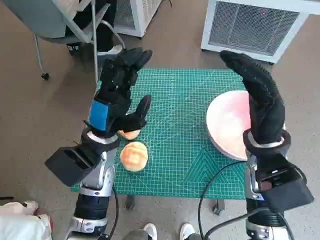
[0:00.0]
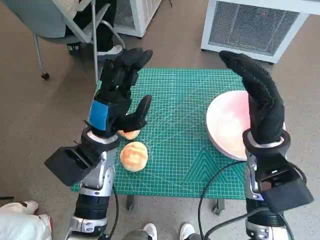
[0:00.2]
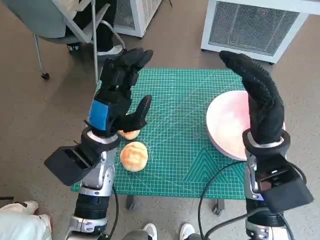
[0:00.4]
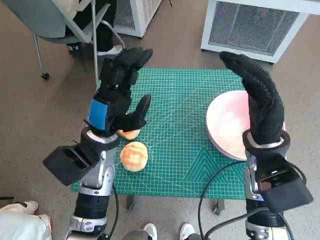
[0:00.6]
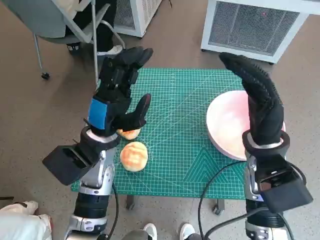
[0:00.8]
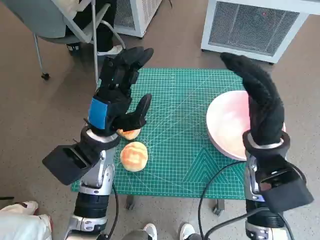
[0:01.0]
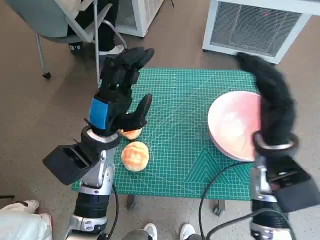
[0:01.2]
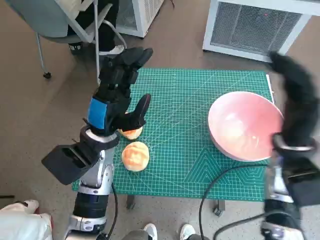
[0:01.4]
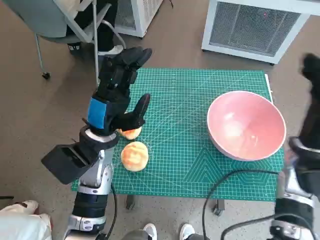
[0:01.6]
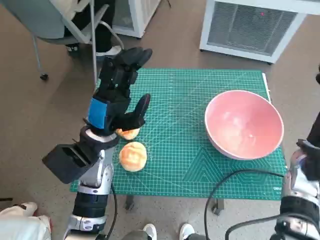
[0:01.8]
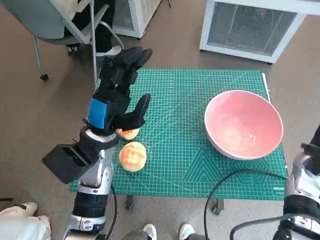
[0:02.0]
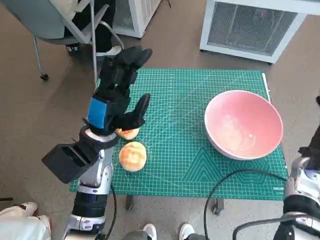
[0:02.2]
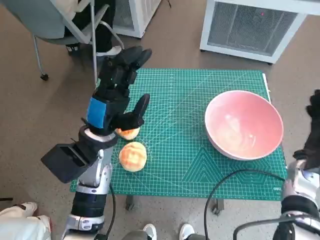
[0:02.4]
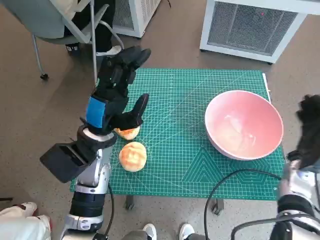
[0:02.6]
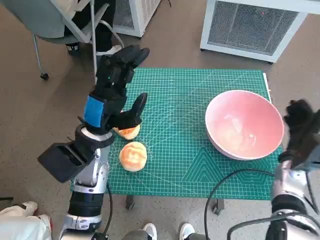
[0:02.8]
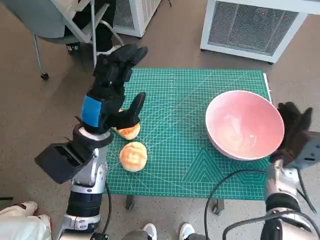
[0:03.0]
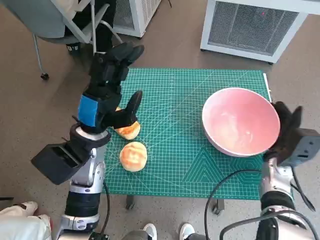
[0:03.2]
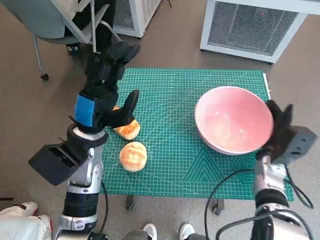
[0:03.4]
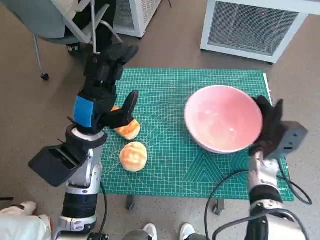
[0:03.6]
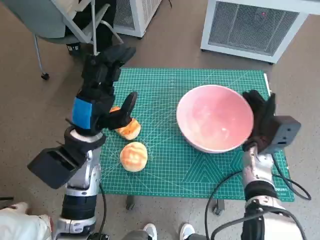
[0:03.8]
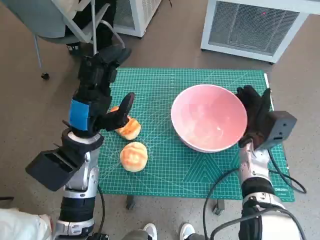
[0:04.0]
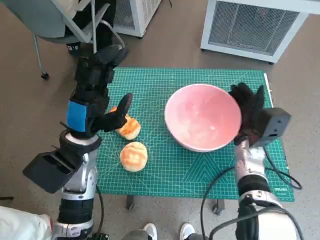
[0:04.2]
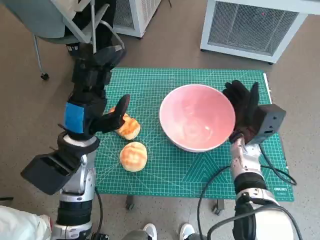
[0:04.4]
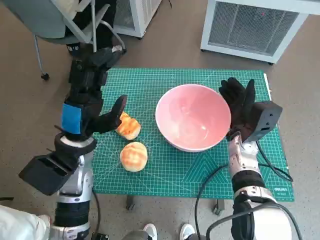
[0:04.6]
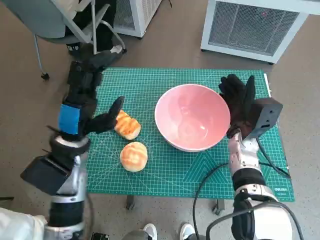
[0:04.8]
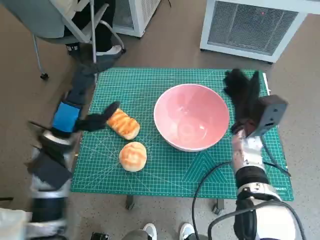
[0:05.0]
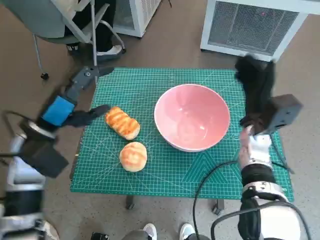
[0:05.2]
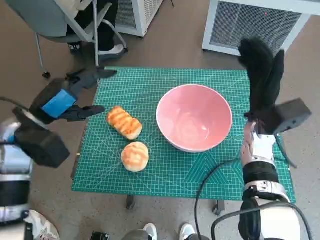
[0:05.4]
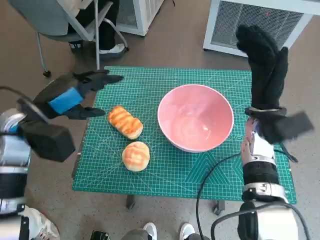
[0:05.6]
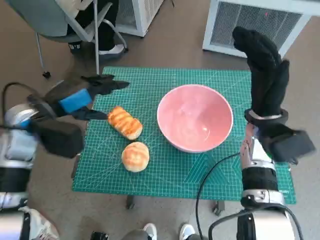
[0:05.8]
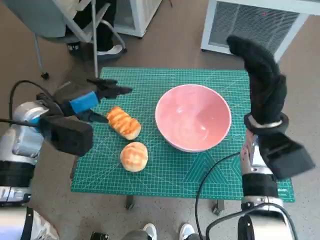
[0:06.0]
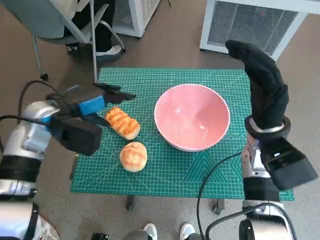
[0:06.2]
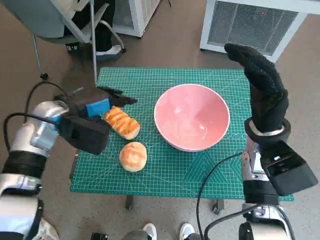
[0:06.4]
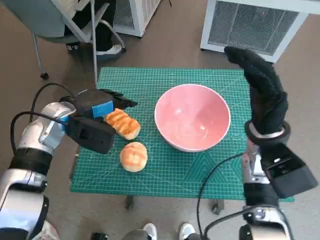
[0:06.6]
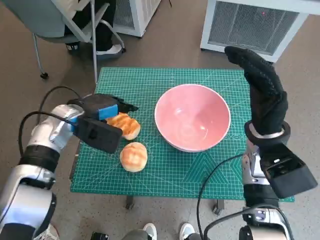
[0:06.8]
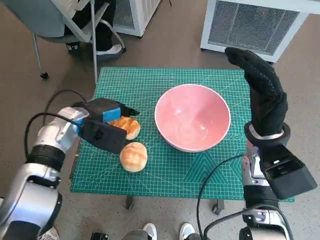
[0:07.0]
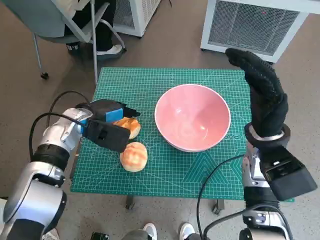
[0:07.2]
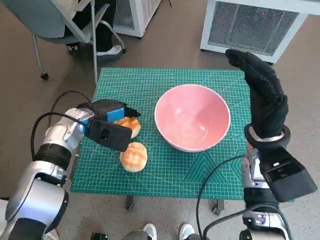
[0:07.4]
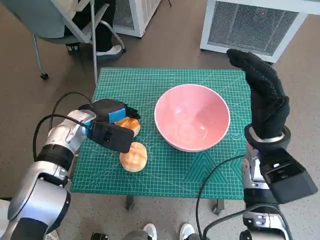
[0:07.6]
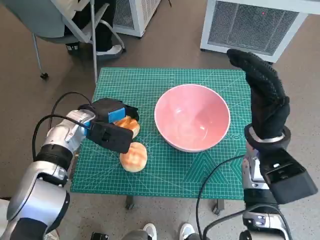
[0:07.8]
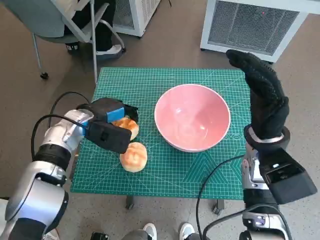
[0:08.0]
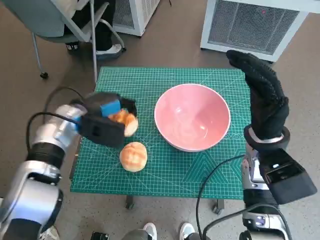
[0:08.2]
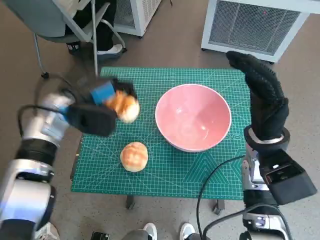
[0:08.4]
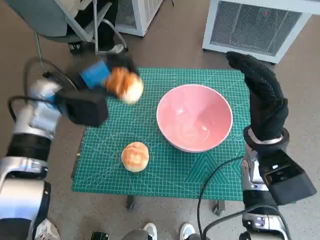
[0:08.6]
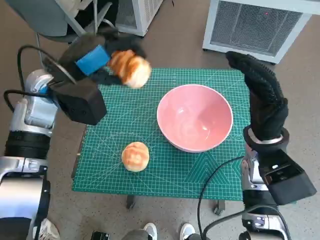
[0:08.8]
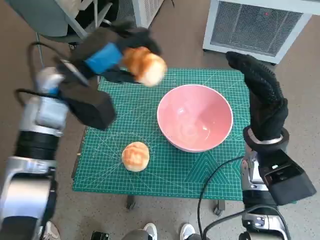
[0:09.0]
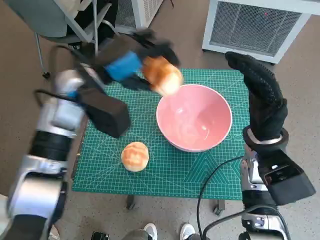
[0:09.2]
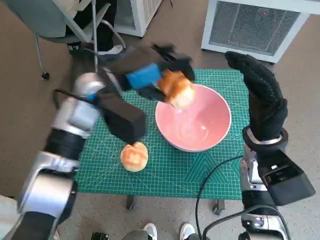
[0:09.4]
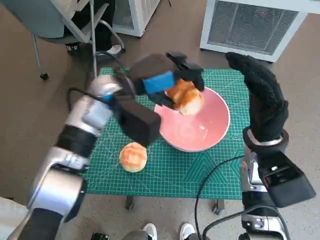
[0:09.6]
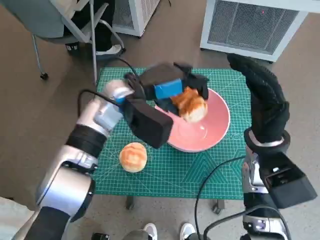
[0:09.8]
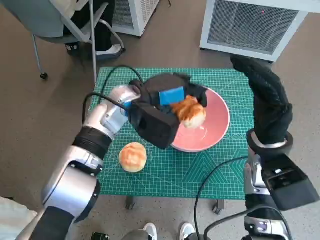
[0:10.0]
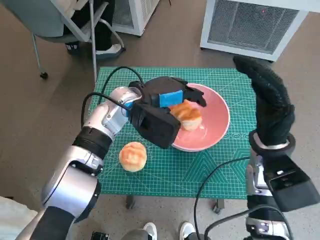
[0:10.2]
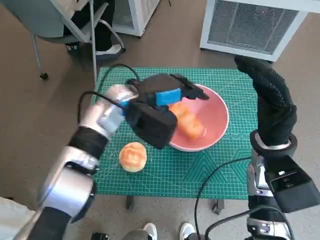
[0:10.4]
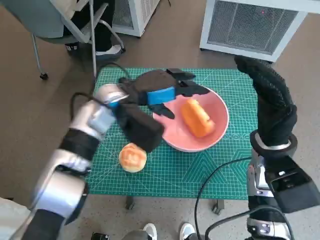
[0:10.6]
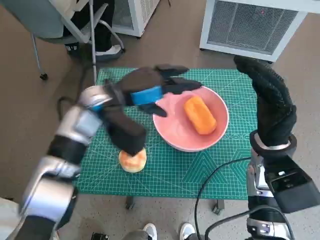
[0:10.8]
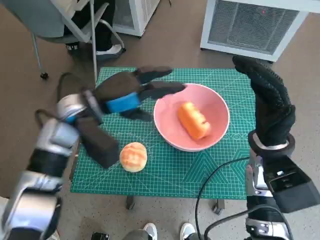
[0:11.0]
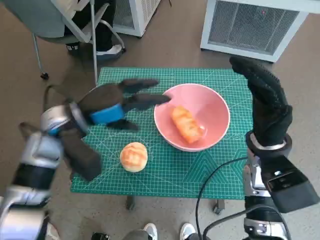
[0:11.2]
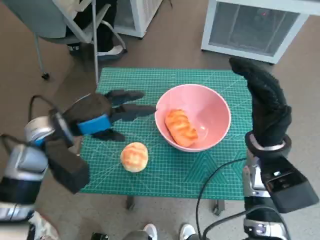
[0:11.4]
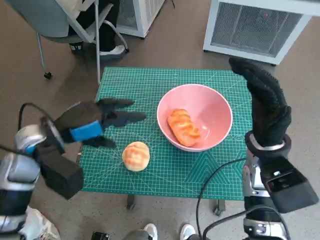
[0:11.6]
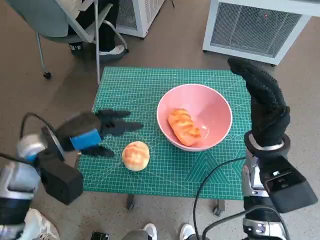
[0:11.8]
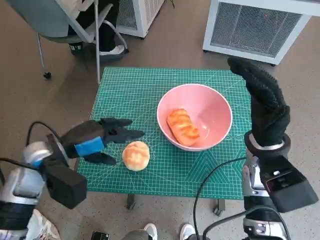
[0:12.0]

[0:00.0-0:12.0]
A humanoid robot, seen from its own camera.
Task of the whole recording: Push the bowl to the center of the table and put the bread into the bowl.
Step, 0.0 to 5.2 s: Move the pink bowl to the center of table with right hand.
Step, 5.4 to 7.6 s: Grasp the long bread with left hand.
Step, 7.8 to 11.0 s: Place the long bread in pink bowl with left hand.
1.6 to 3.0 s: The right hand shifts some 10 cm downward.
3.0 to 4.4 s: The right hand shifts some 10 cm to the left.
4.4 to 6.0 s: The left hand heads to the left, covering about 5 cm. Meanwhile the right hand heads upward, covering some 10 cm.
6.0 to 7.6 s: The left hand moves downward, approximately 10 cm.
7.6 to 9.0 s: The left hand shifts roughly 15 cm upward.
9.0 to 10.4 s: The left hand shifts approximately 10 cm to the right and downward.
10.4 to 12.0 s: The left hand is displaced to the left and backward by approximately 20 cm.

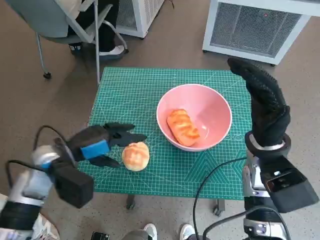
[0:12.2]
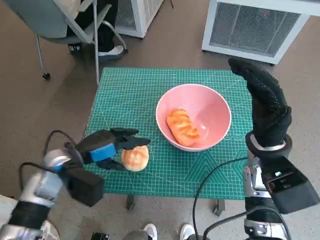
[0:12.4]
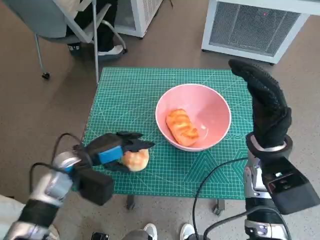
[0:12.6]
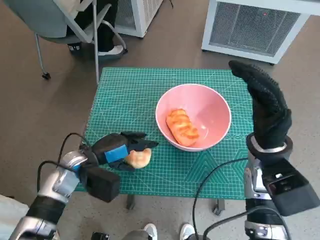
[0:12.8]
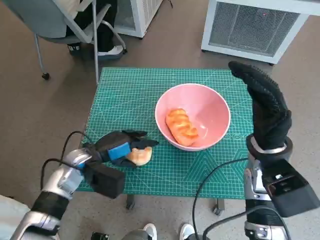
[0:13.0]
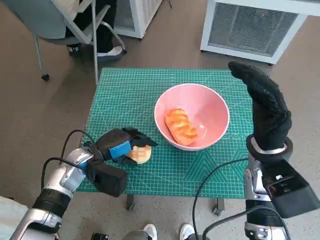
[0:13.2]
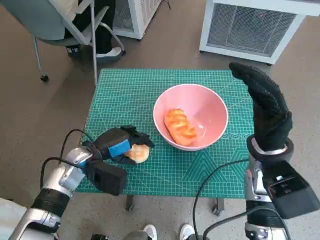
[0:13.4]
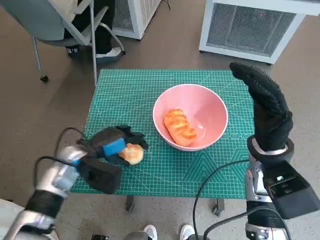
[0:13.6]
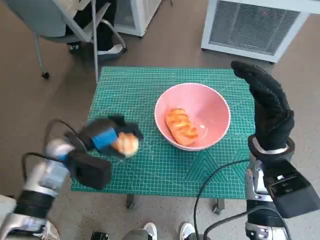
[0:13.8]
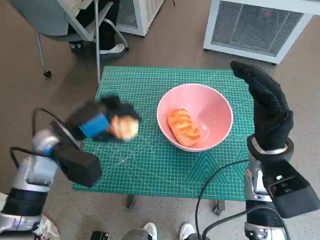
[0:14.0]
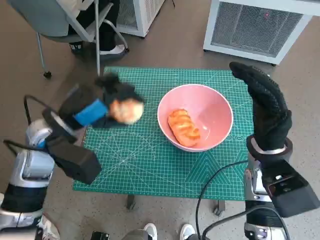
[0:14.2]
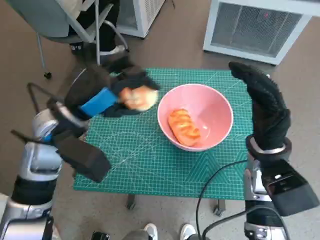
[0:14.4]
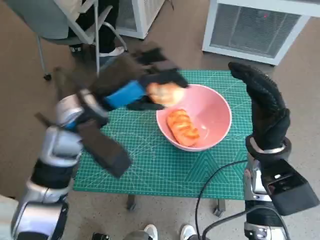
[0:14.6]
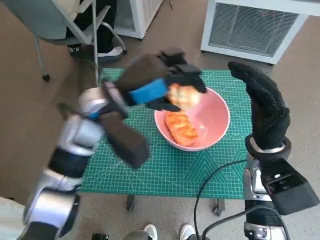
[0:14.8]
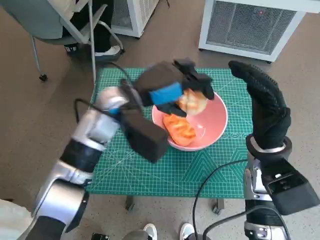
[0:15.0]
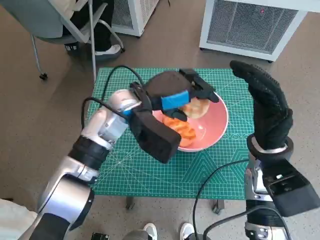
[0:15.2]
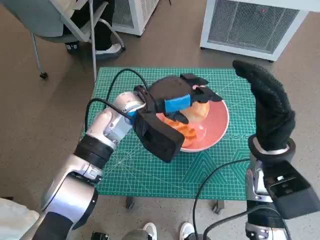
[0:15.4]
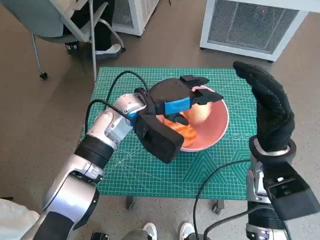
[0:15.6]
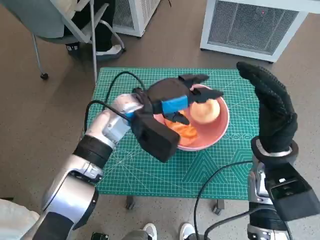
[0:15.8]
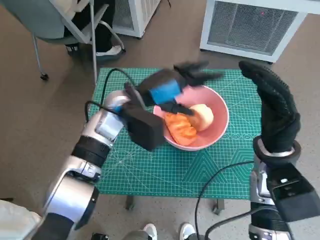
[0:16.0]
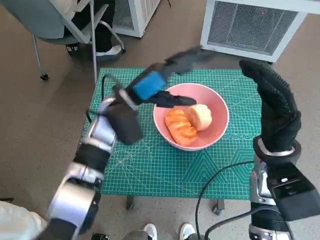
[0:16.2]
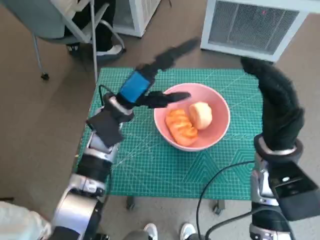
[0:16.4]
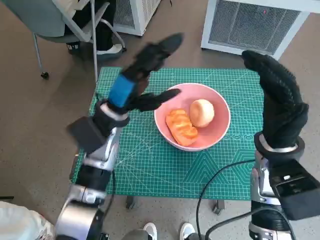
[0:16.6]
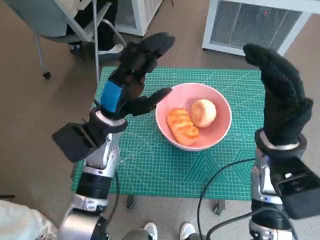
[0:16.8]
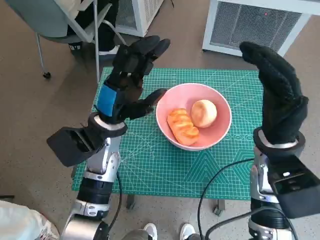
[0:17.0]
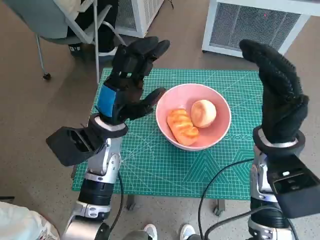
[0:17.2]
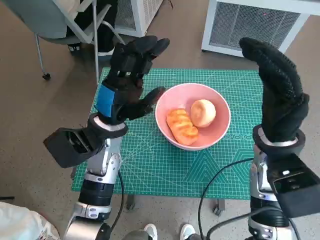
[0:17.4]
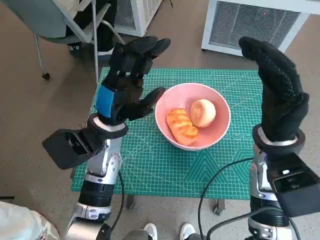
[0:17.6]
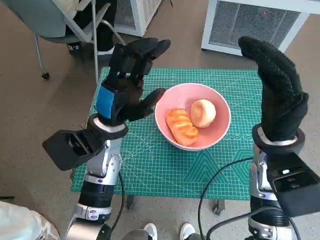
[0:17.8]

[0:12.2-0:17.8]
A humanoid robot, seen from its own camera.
Task of the whole recording: Push the bowl to the center of the table and put the bread into the bowl.
Step, 12.2 to 13.2 s: Grasp the round bread with left hand.
Step, 13.4 to 16.0 s: Place the round bread in pink bowl with left hand.
12.2 to 13.6 s: The left hand shifts about 5 cm downward.
13.6 to 15.0 s: The left hand shifts some 15 cm upward and to the right.

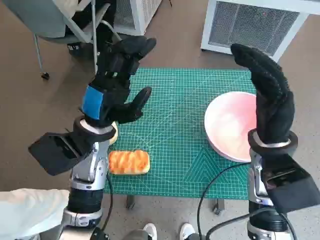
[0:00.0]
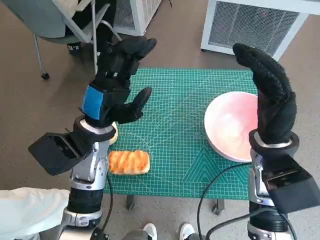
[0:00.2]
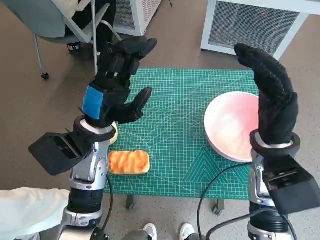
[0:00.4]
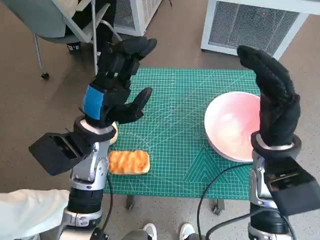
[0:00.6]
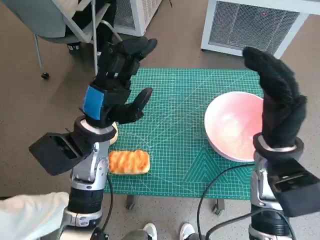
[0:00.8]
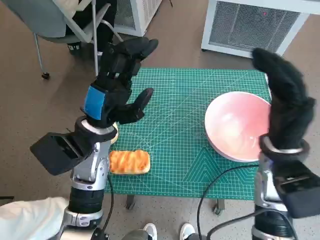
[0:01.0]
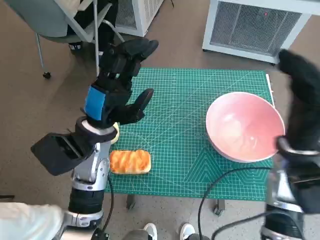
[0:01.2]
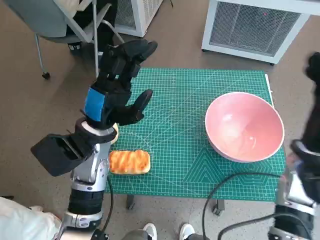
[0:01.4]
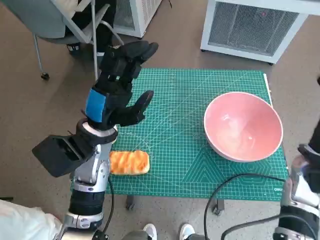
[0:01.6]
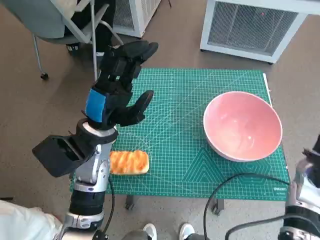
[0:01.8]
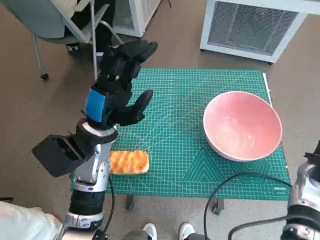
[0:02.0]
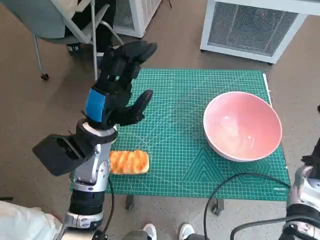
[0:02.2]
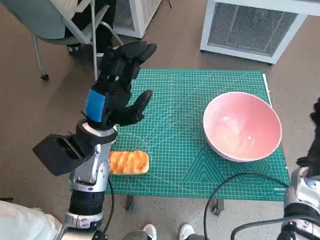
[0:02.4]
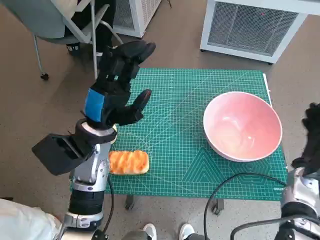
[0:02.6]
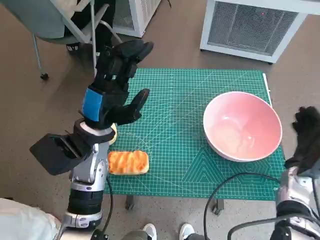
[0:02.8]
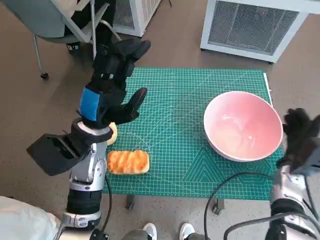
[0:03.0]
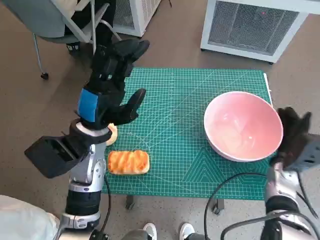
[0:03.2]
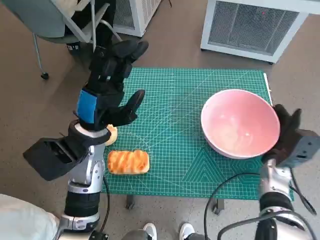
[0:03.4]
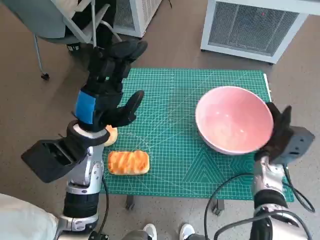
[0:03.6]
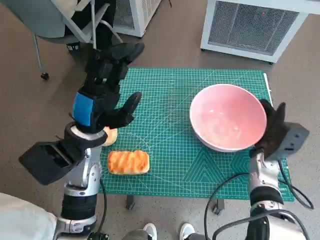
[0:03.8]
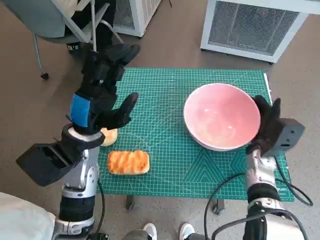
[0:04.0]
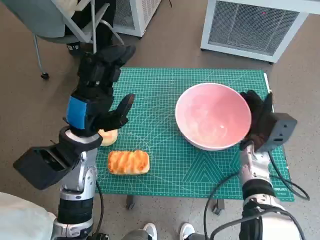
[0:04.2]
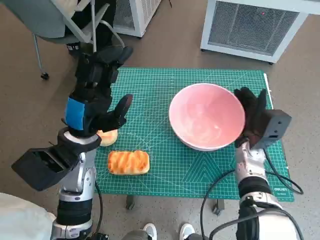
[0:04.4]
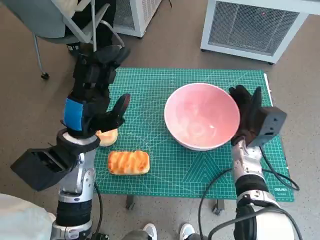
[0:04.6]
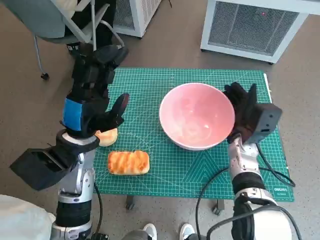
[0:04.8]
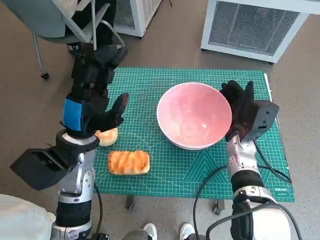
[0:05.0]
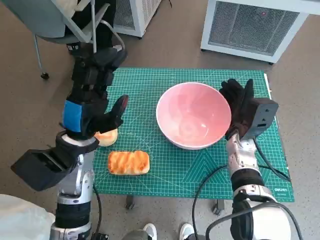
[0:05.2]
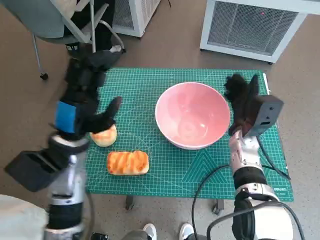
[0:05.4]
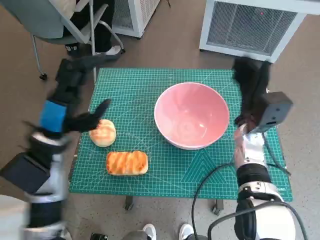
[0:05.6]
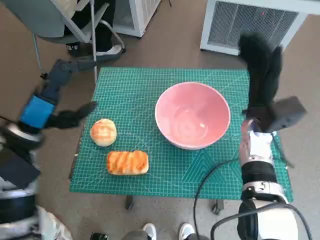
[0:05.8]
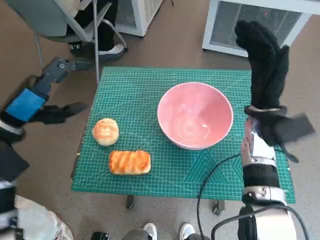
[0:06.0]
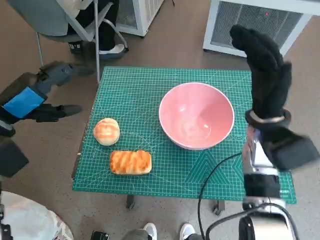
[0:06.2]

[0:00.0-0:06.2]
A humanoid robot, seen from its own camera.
Task of the whole recording: Push the bowl to the center of the table and put the bread into the bowl.
Step, 0.0 to 5.6 s: Move the pink bowl to the center of table with right hand.
1.6 to 3.2 s: The right hand travels downward by about 10 cm.
3.2 to 4.6 s: The right hand moves to the left, about 10 cm.
4.6 to 6.2 s: The left hand is displaced to the left and upward by some 15 cm; the right hand travels upward by about 10 cm.
